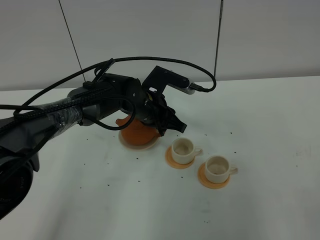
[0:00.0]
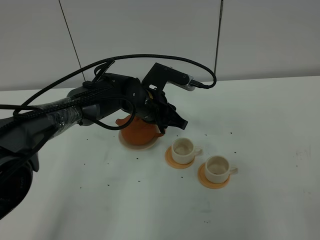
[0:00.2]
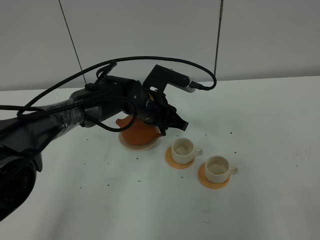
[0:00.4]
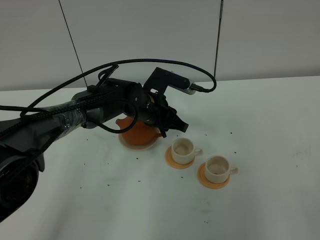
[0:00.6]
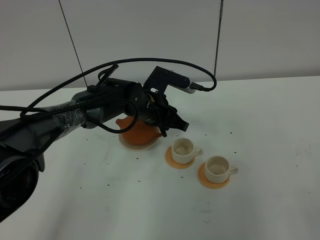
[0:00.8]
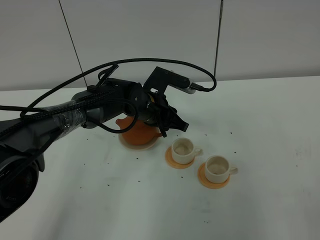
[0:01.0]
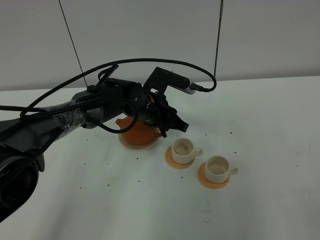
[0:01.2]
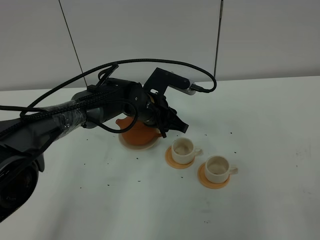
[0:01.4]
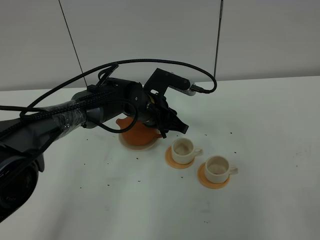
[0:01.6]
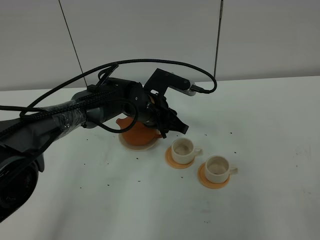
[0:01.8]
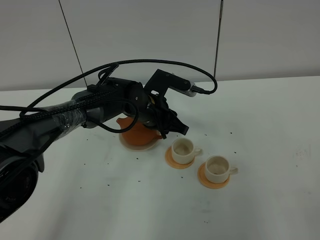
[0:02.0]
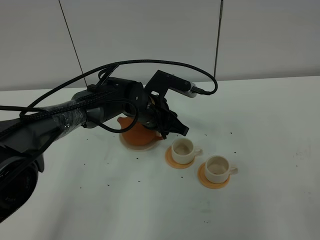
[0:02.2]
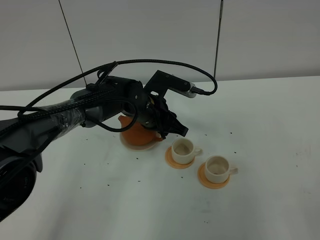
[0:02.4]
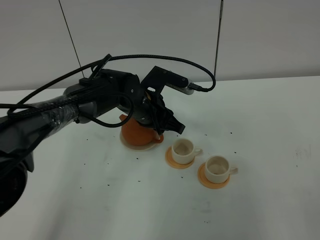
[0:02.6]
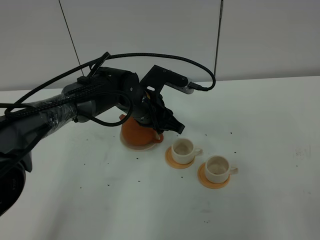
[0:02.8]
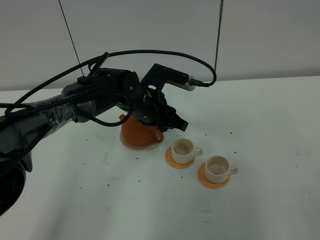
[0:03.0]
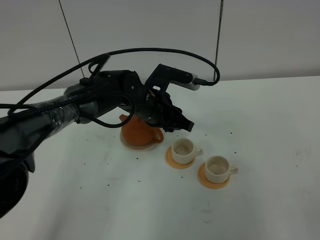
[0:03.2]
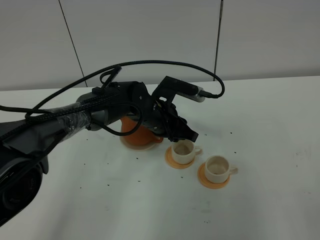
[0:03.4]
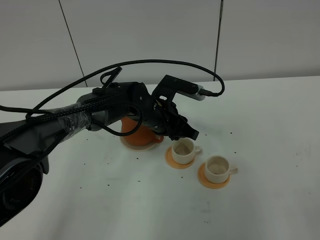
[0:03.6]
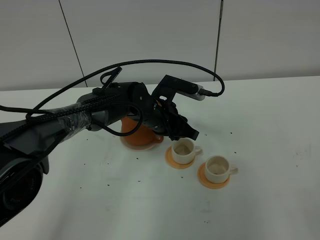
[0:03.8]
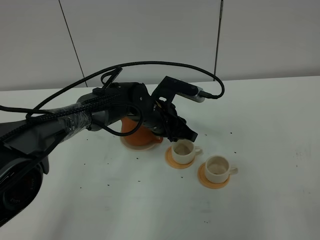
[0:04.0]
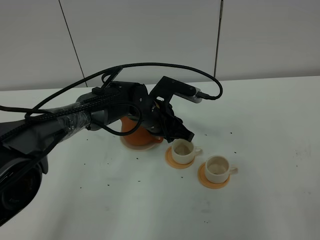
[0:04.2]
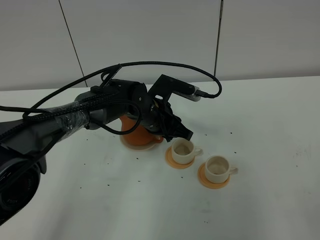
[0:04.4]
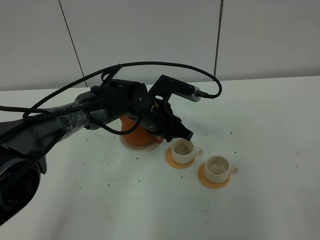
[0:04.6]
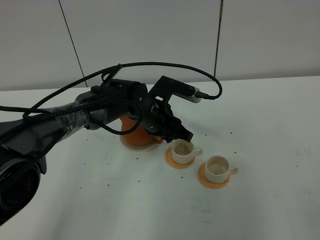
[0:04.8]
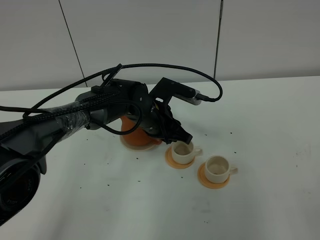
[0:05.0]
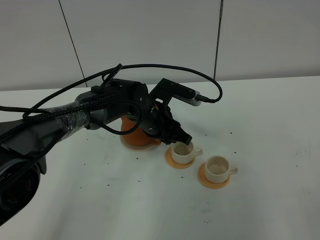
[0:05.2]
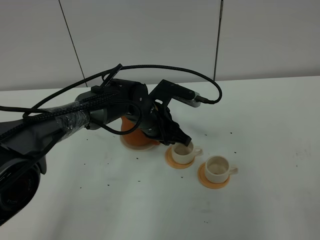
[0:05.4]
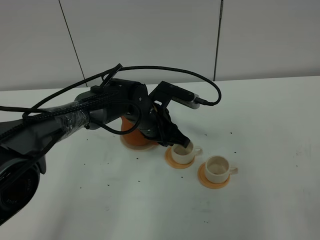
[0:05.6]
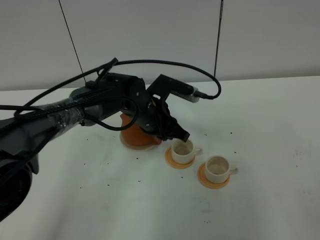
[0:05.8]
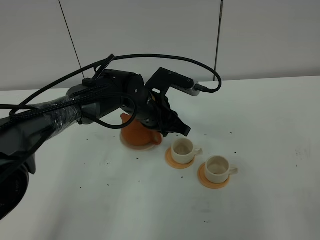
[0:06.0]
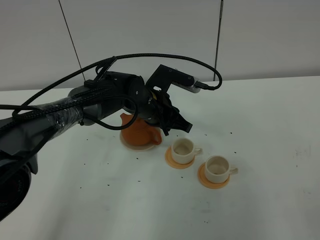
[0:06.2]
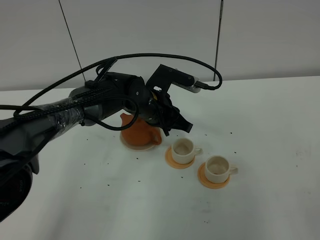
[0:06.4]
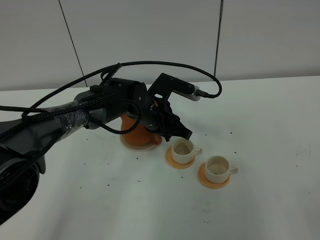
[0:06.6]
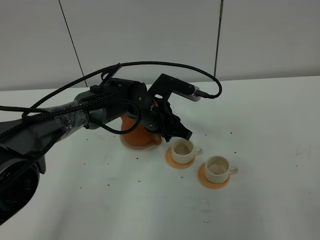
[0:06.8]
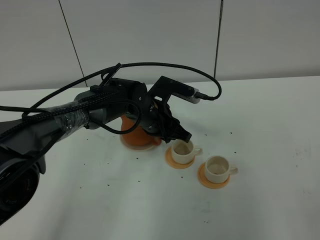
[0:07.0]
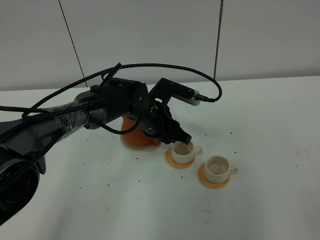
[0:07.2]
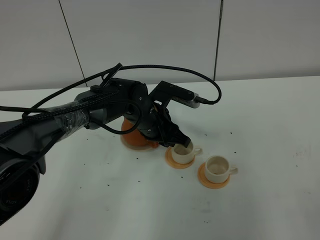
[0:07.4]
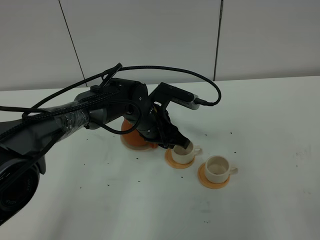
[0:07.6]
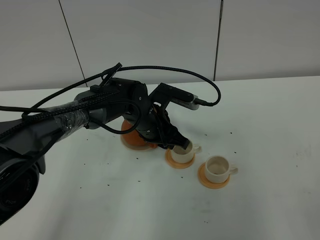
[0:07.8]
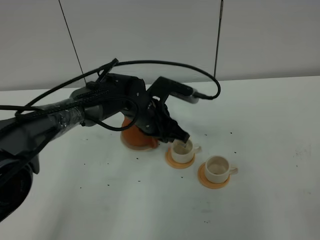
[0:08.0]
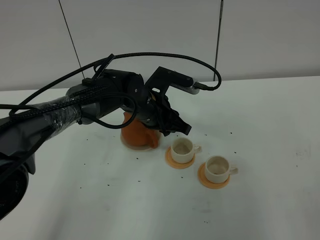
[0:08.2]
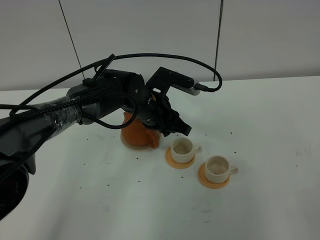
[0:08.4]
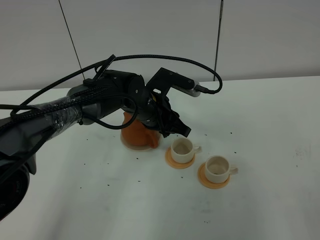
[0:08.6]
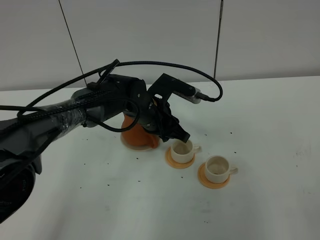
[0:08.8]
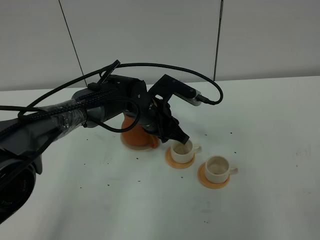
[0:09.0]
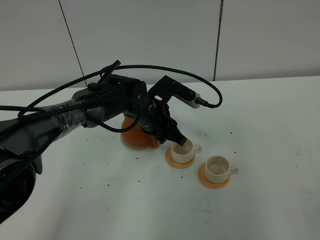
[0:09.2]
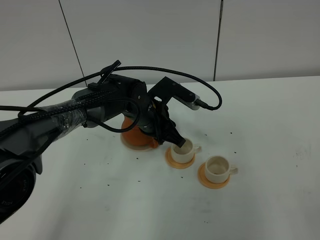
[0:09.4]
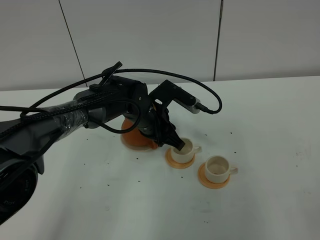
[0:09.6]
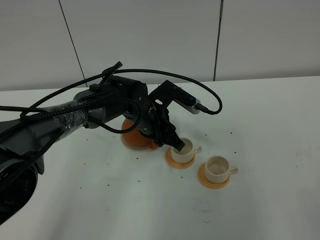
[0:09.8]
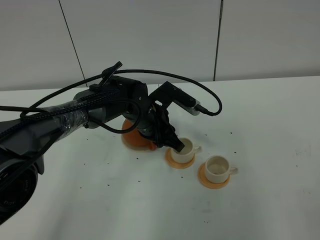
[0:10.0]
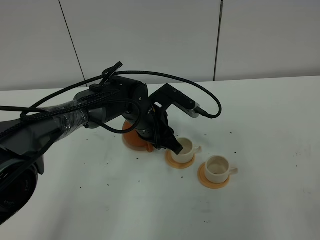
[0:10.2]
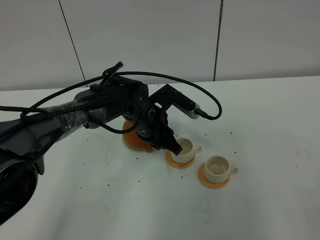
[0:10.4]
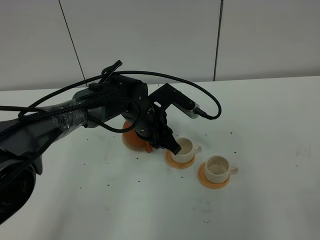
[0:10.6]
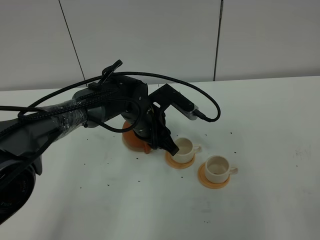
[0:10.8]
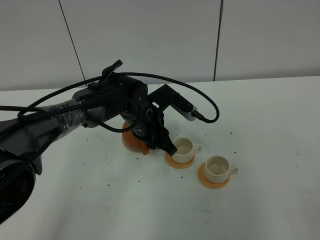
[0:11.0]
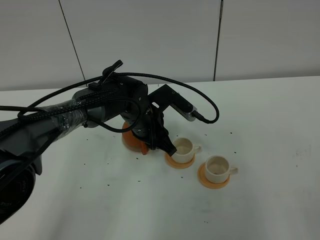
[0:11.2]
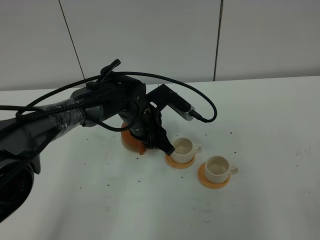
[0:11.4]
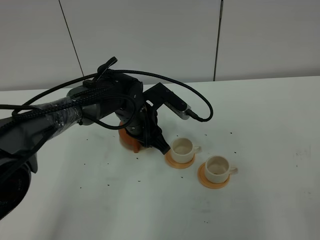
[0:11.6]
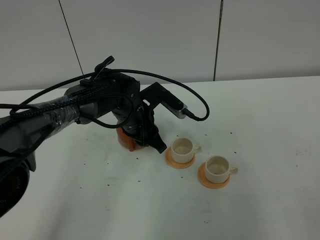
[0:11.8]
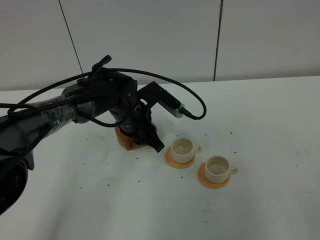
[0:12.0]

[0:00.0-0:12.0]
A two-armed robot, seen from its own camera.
Task of the whole recording: grasp the brown teapot and pour the tea into the two white teacups one by one, put the brown teapot back in its original place.
0:00.0 to 0:01.6: Both grippers stay about where they are.
0:01.6 to 0:10.4: The grippers make only small movements.
0:10.4 to 0:12.0: The grippers move only a little.

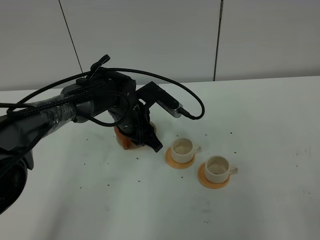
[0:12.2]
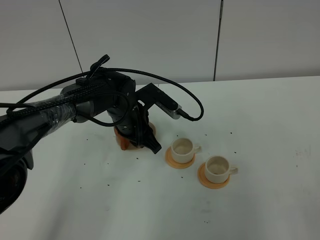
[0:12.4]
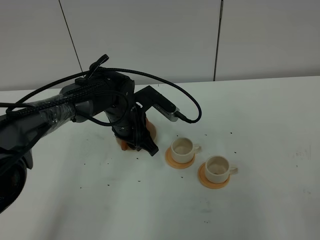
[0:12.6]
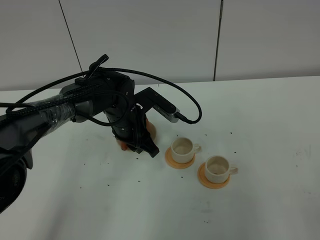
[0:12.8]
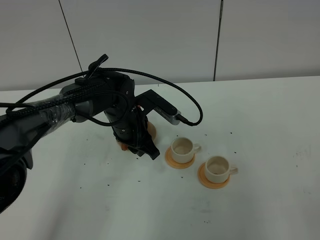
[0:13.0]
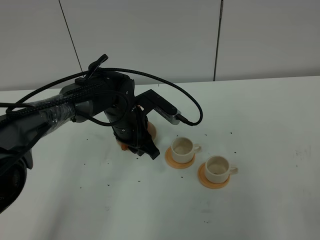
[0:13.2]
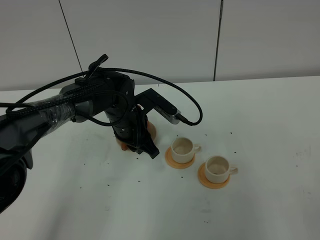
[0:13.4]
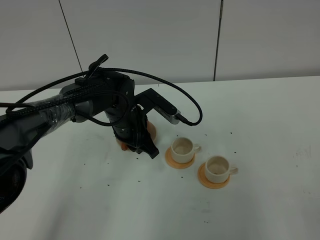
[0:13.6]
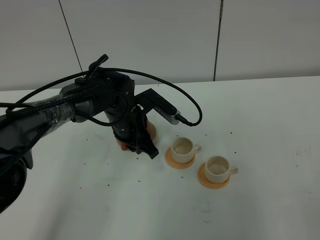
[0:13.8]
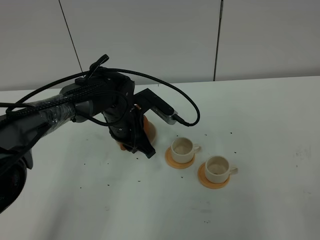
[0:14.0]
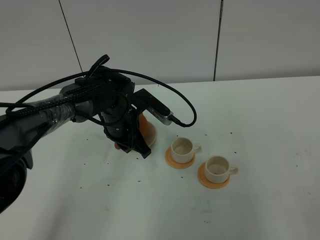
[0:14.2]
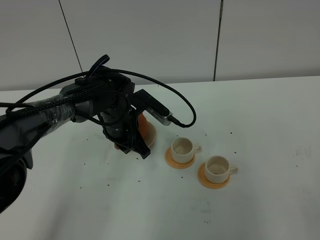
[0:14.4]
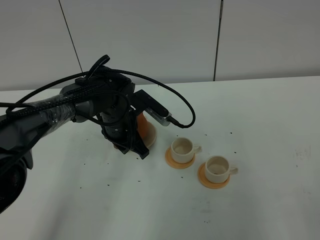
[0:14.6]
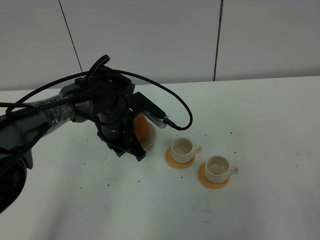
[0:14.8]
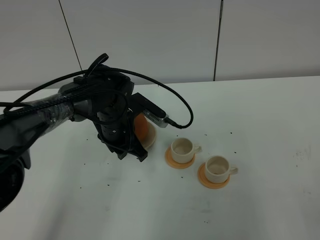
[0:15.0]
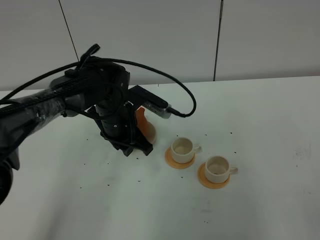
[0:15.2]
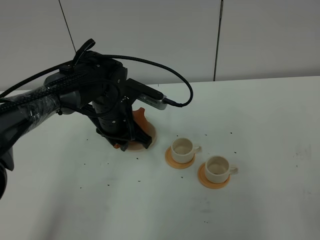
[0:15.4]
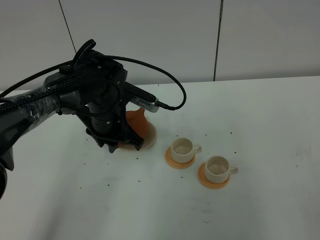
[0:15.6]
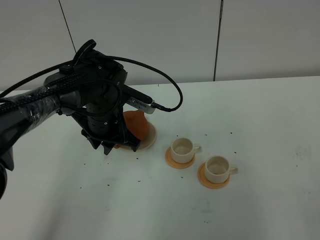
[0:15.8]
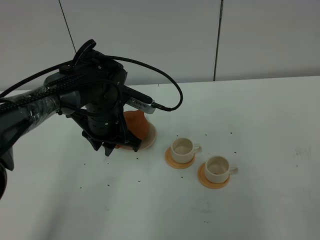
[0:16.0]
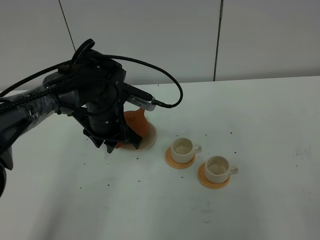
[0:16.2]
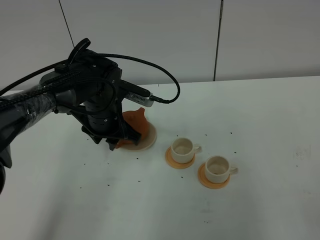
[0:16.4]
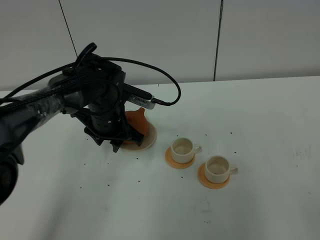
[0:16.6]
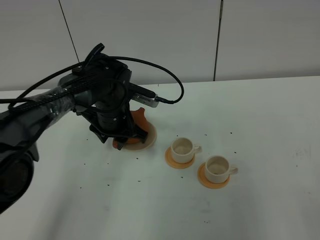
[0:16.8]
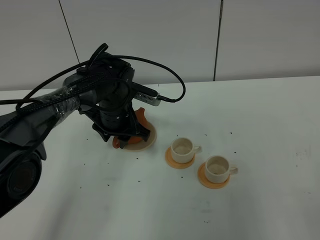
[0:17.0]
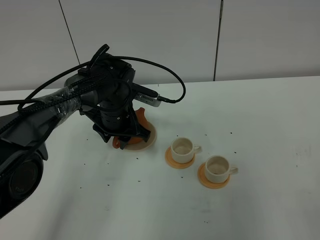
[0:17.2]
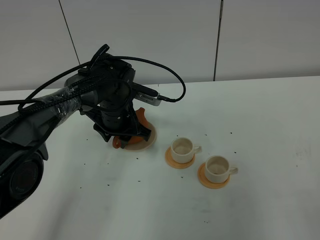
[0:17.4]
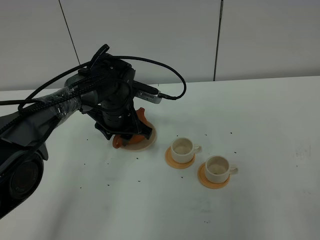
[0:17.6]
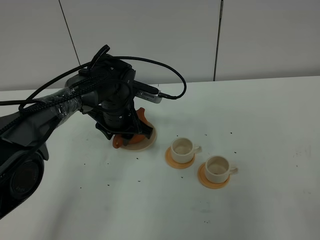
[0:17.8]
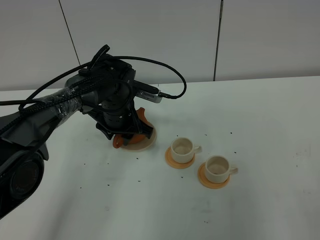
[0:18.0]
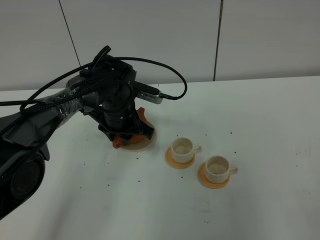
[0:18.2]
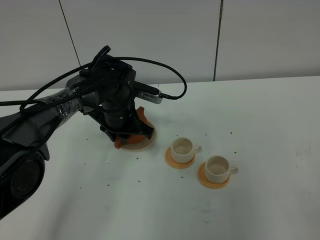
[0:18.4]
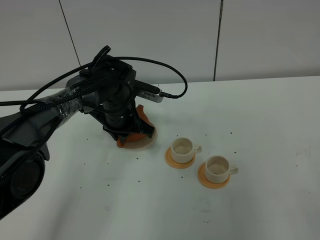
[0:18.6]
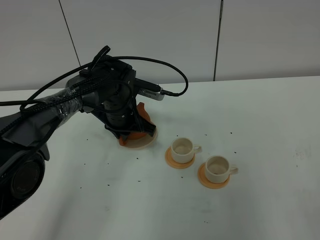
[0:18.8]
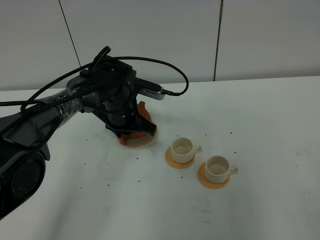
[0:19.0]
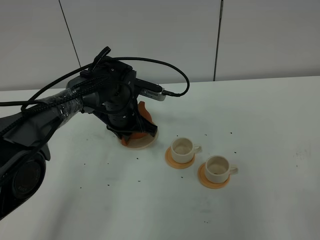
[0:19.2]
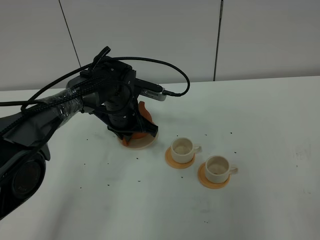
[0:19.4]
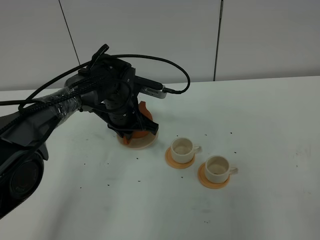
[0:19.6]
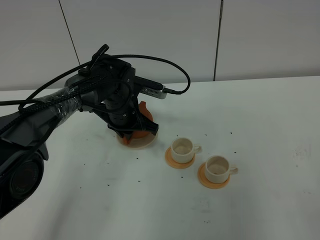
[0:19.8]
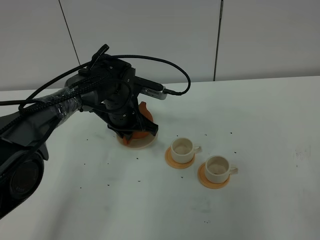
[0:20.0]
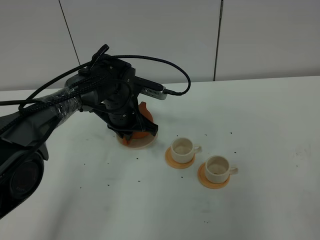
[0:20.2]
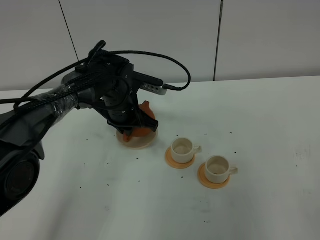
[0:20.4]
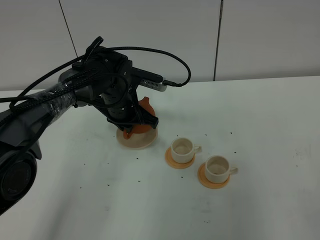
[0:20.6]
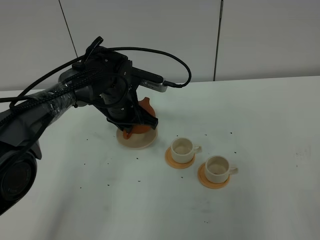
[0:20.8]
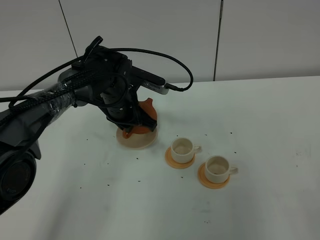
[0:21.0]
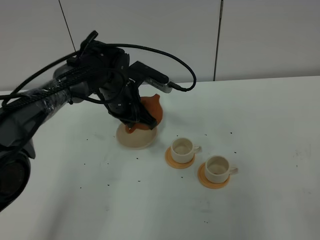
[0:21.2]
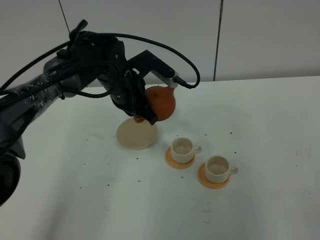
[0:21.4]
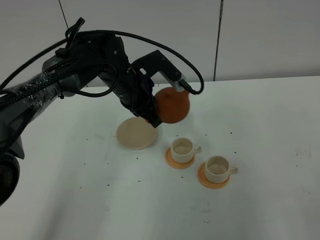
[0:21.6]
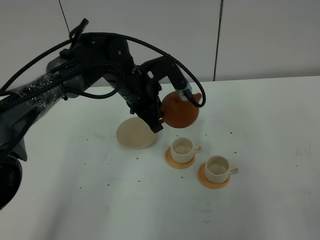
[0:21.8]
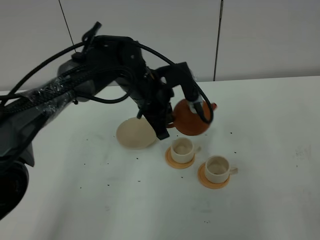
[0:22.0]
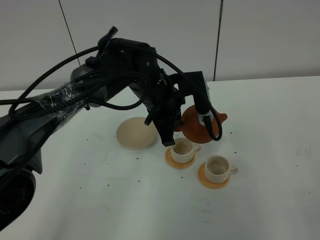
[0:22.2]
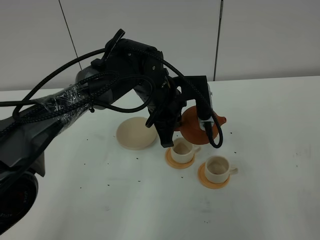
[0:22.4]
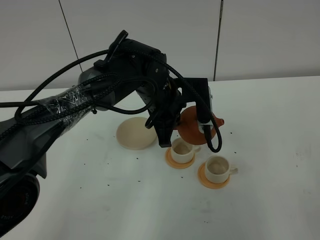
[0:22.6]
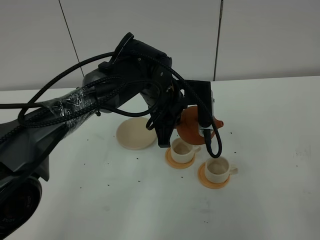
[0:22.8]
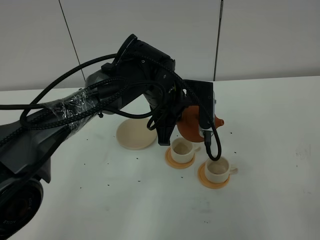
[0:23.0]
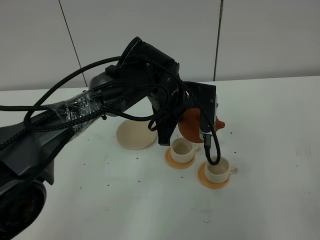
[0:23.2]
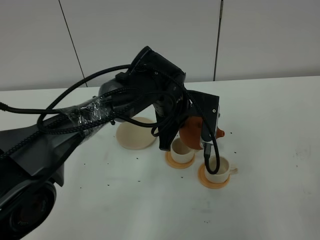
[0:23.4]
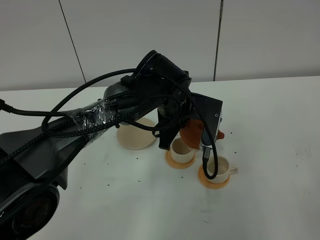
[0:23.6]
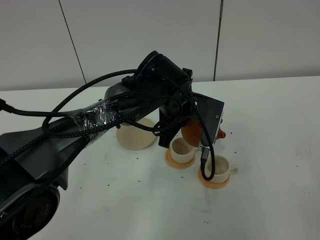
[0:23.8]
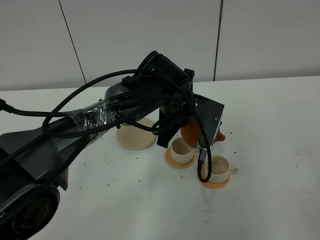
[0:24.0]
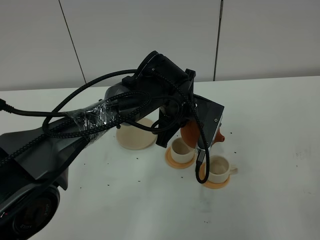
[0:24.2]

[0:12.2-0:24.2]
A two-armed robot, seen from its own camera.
Task of the whole recording: grasp the brown teapot and pour the tea into the two white teacups one by one, put the brown teapot back in its original place.
Step, 0:12.2 to 0:21.2: Pick up the teapot with the left gripper.
0:12.2 to 0:15.2: The grippers move only a little.
0:15.2 to 0:16.6: The left gripper opens up.
0:16.6 to 0:18.2: There are only small adjustments of the grippers.
0:18.2 to 0:19.8: The left gripper closes up.
0:19.8 to 0:21.2: The grippers stay close to where they were, moving slightly.
0:21.2 to 0:22.6: The left gripper heads to the right, covering some 10 cm.
